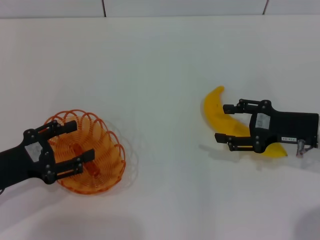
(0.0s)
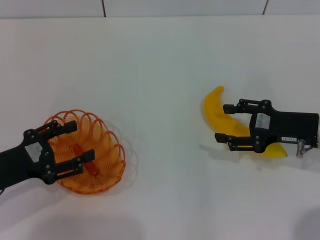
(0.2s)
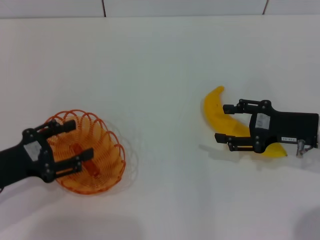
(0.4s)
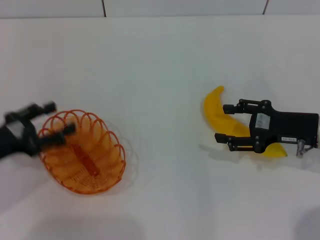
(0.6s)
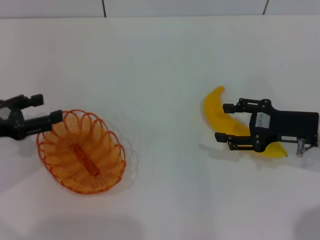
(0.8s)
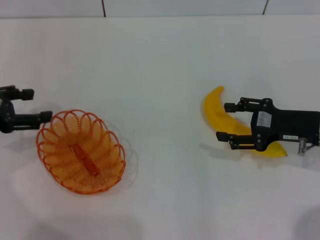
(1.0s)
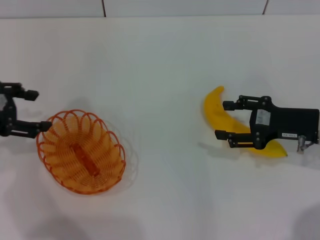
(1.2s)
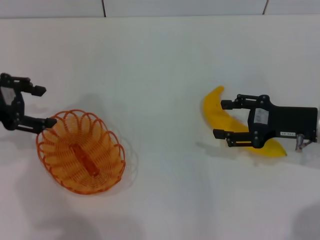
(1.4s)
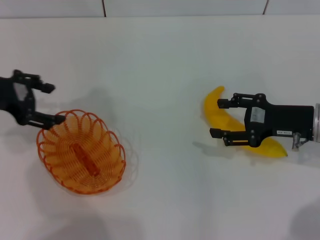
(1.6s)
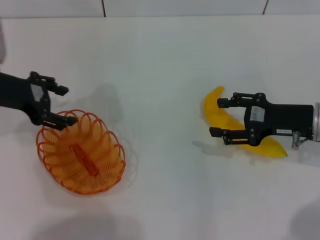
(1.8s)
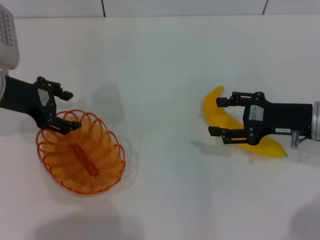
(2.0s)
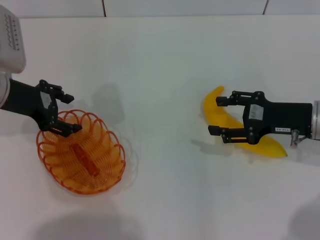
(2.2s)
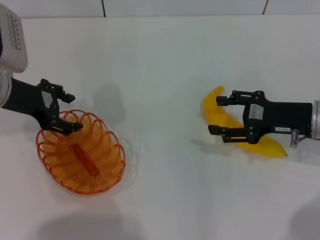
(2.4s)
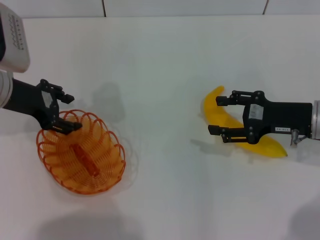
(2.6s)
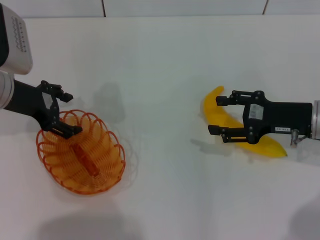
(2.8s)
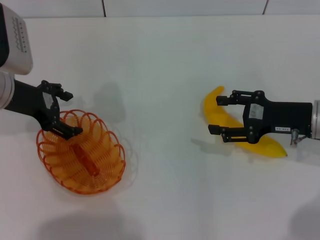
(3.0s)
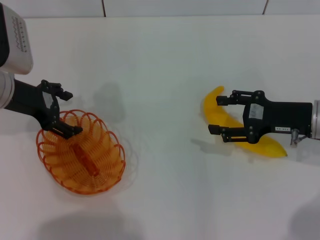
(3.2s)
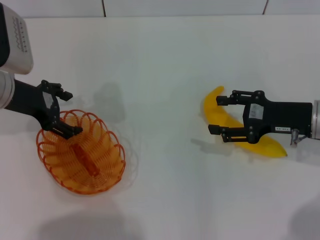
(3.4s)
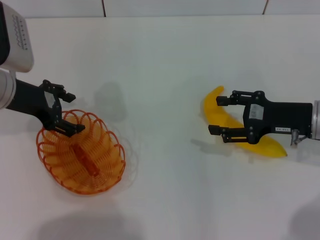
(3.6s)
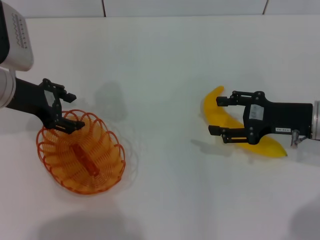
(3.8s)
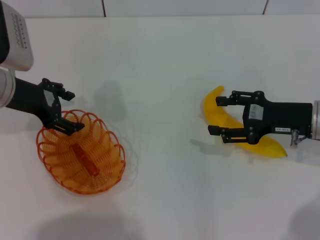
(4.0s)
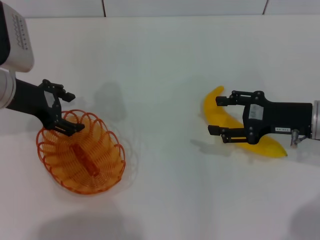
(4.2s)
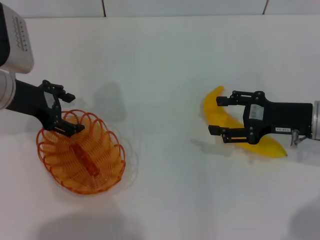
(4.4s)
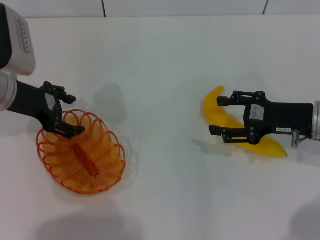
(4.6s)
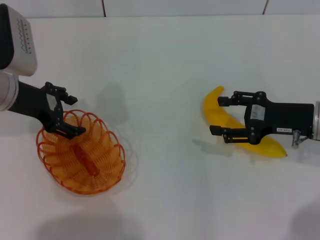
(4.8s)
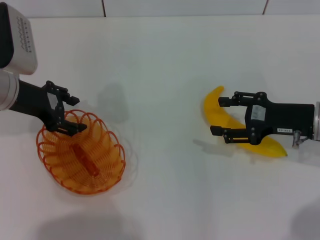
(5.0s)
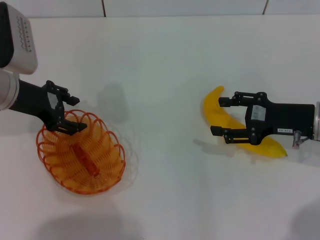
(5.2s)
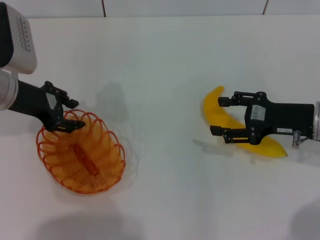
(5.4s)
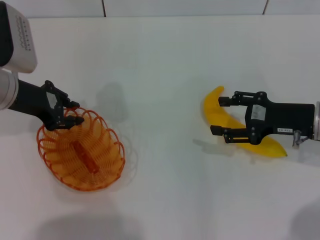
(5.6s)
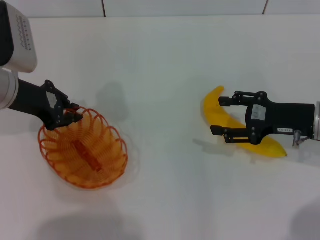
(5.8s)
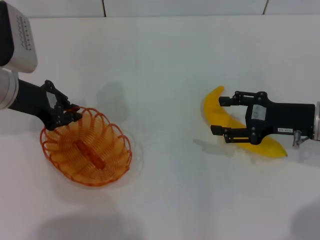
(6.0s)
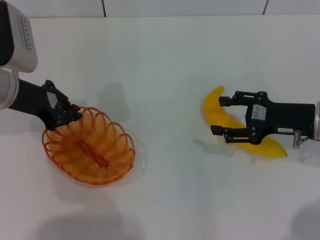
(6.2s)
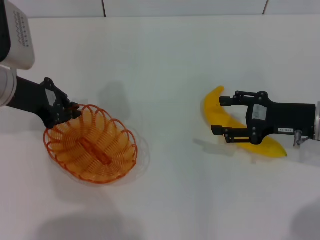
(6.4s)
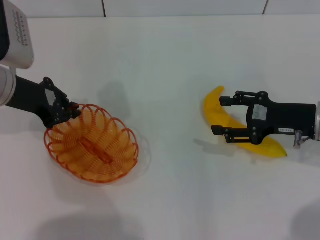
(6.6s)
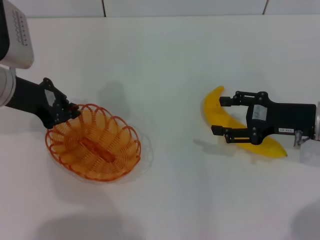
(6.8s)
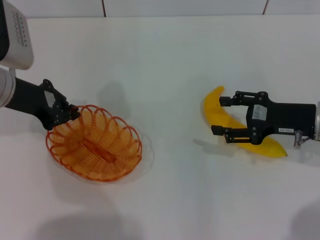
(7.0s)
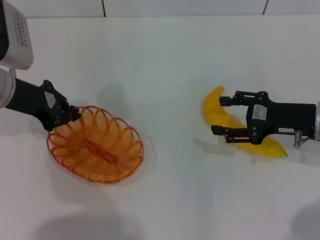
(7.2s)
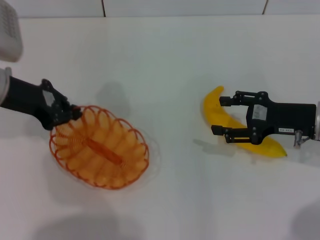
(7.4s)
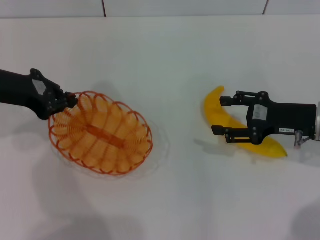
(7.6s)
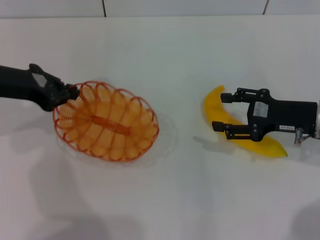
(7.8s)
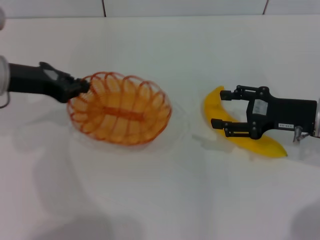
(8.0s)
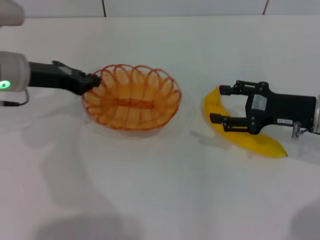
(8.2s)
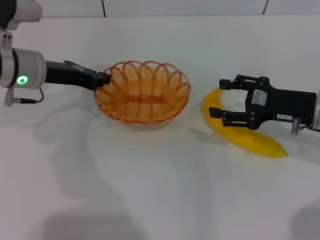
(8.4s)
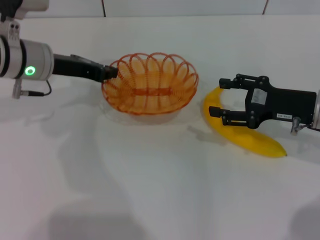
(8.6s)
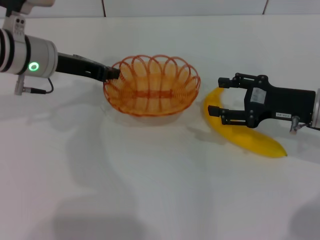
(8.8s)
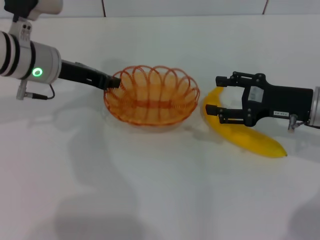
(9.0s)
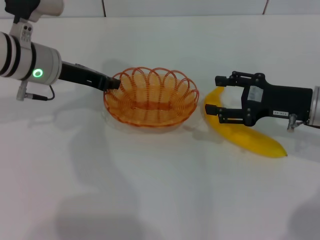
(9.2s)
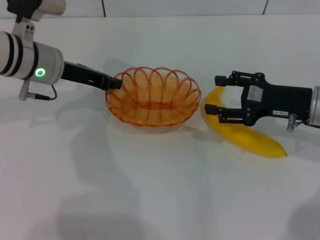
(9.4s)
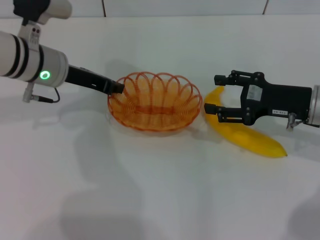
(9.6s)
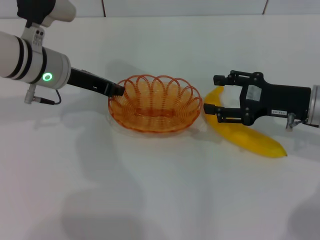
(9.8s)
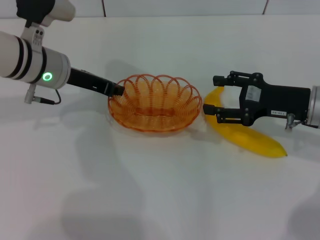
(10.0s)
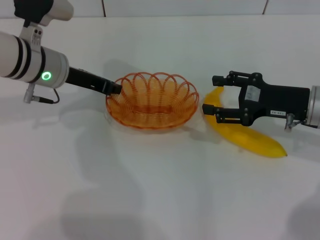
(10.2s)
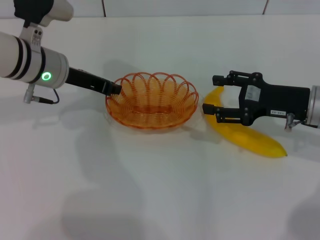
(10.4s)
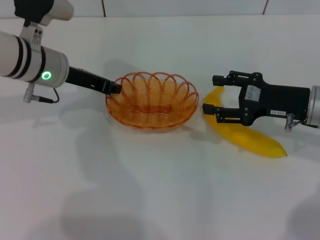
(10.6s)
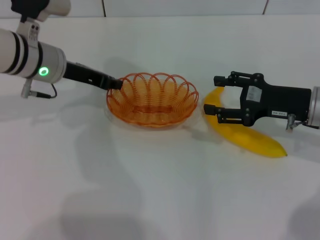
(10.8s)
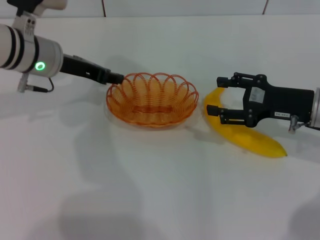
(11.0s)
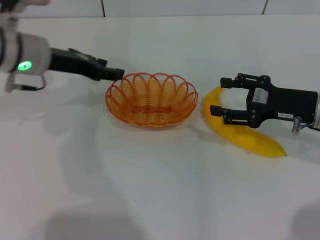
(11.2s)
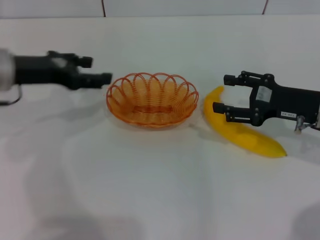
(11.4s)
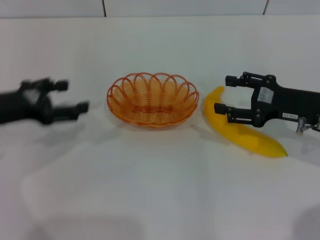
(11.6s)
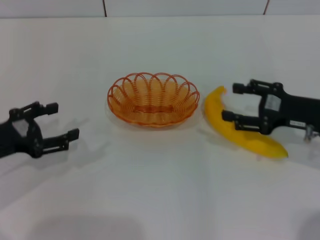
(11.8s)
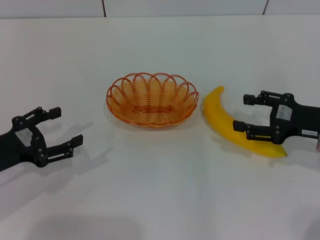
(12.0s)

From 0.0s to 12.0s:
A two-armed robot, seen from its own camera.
Step, from 0.0s to 7.2s: Pick up the basket with the left gripper.
Step, from 7.6s to 11.2s: Place the basket in the center of view with the left gripper.
From 0.0s to 1.6s: The left gripper moves forward and upward, about 15 cm.
From 1.6s to 3.0s: The left gripper moves roughly 5 cm.
From 3.0s to 4.4s: The two grippers keep their place.
From 4.4s to 6.0s: The left gripper closes.
From 6.0s to 7.6s: There are only small adjustments of the grippers.
From 7.6s to 9.0s: The left gripper shifts some 10 cm to the right and forward.
From 9.0s to 10.4s: Neither gripper changes place.
From 10.4s to 12.0s: The left gripper moves backward, to the left and downward, some 20 cm, and opens up, while the right gripper changes place by some 5 cm.

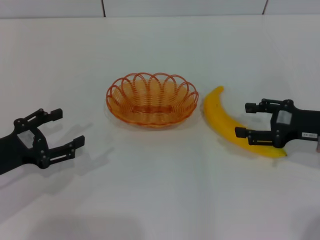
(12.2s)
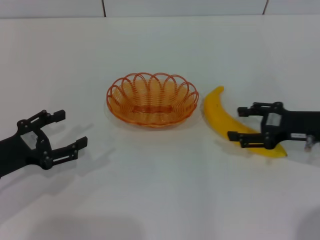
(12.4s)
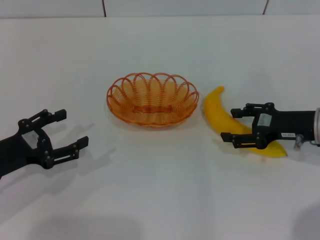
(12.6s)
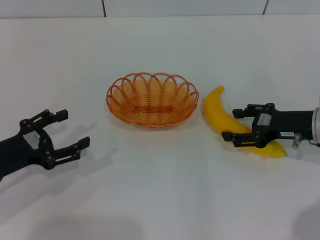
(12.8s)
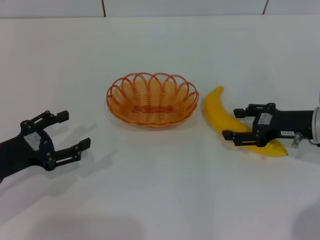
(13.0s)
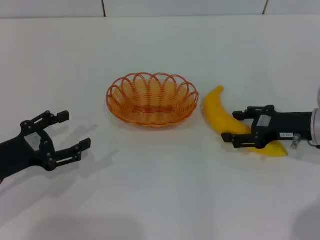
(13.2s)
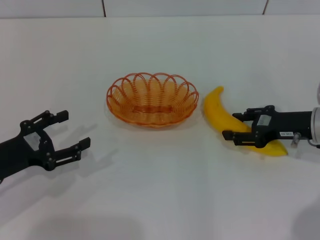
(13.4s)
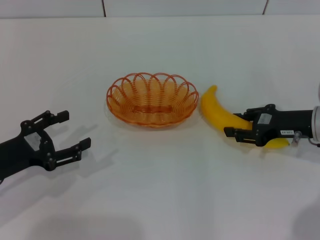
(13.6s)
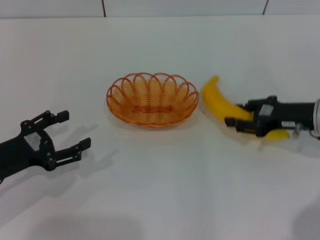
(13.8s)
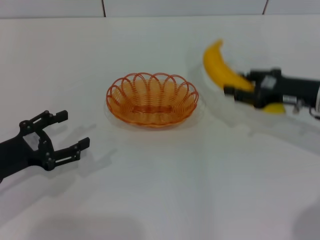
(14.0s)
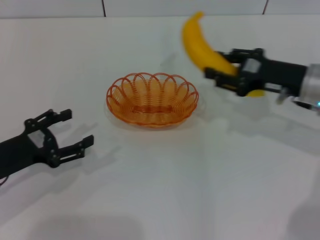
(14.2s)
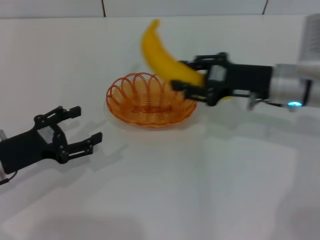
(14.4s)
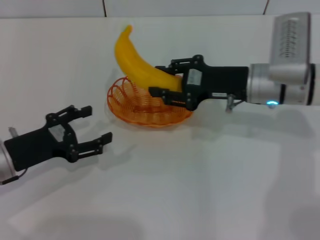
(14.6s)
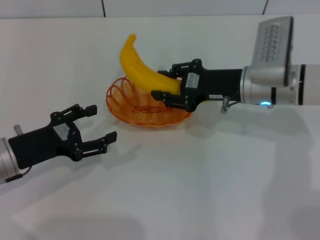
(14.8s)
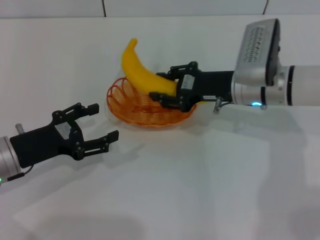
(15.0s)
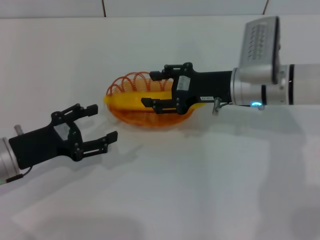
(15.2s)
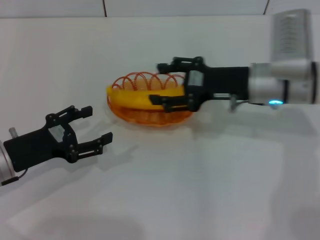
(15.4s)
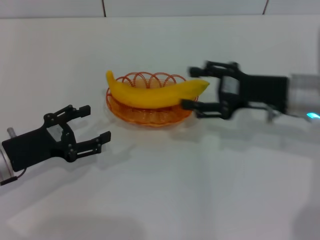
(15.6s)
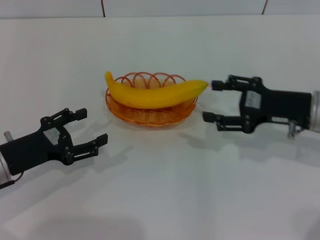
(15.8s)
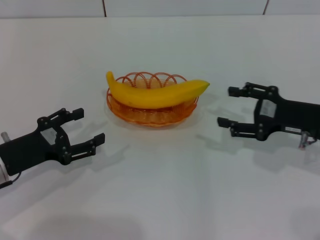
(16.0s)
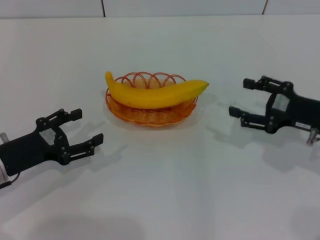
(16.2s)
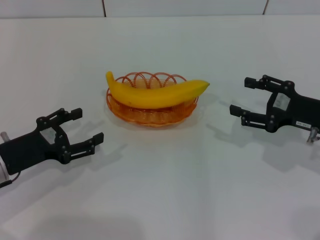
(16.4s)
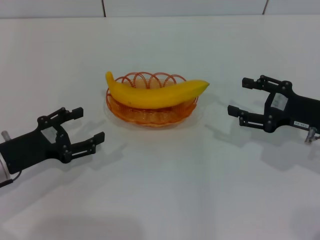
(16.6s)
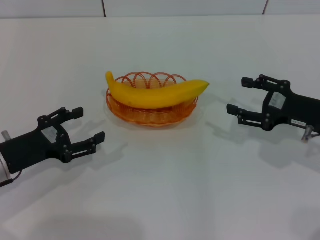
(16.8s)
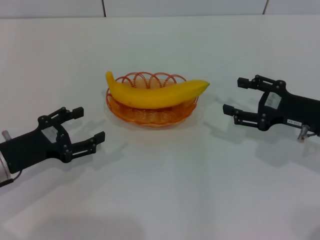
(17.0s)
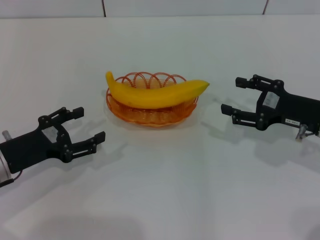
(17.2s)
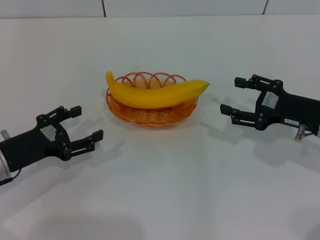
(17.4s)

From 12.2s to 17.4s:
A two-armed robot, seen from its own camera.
Step, from 12.2s to 13.6s: Pick up the banana with the right gripper.
Step, from 13.8s to 15.2s: Place the banana into the basket with the right gripper.
From 12.2s to 14.0s: The right gripper shifts by approximately 5 cm, and closes its fingers.
From 14.0s to 15.6s: The right gripper heads to the left, covering roughly 5 cm, and opens up.
From 15.6s to 17.4s: The right gripper heads to the right, covering approximately 5 cm.

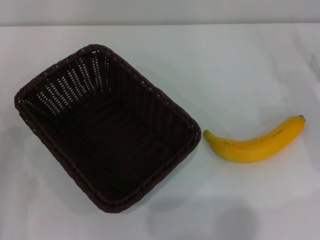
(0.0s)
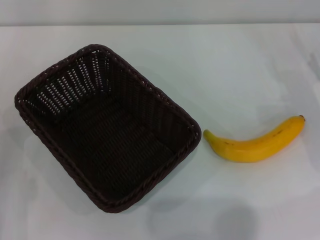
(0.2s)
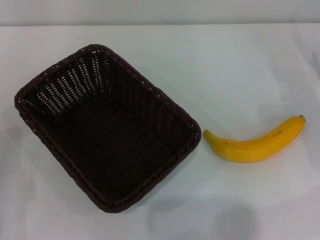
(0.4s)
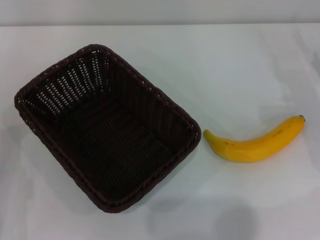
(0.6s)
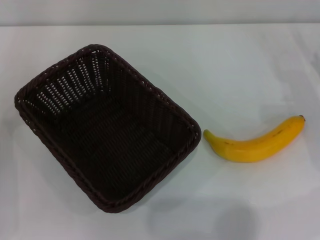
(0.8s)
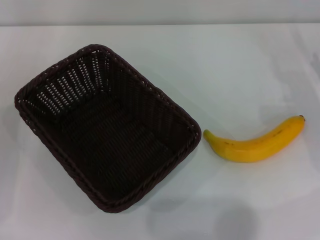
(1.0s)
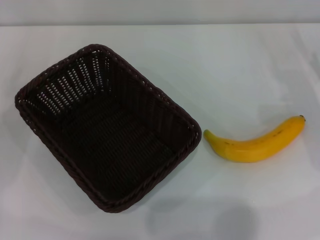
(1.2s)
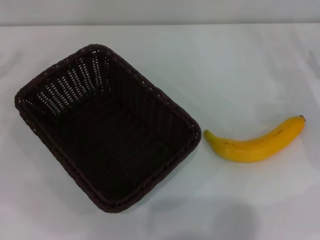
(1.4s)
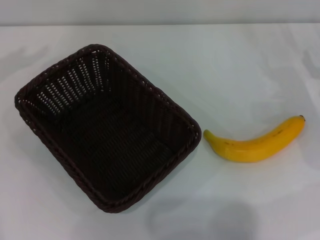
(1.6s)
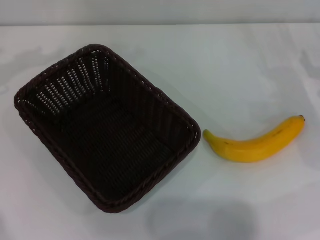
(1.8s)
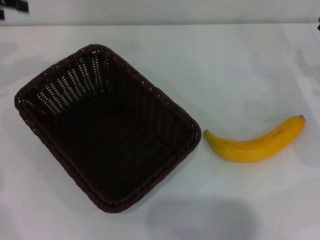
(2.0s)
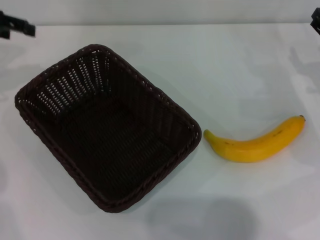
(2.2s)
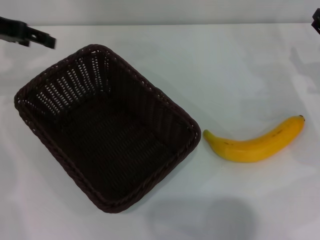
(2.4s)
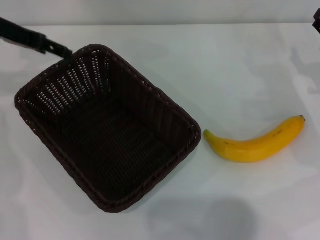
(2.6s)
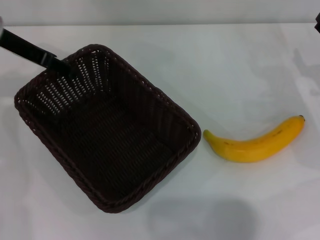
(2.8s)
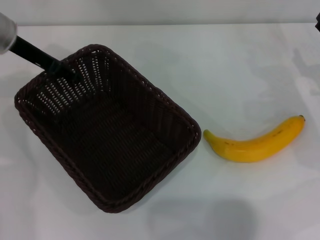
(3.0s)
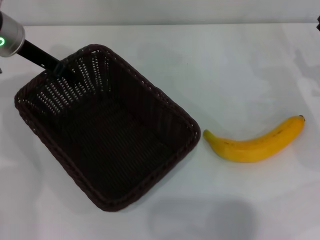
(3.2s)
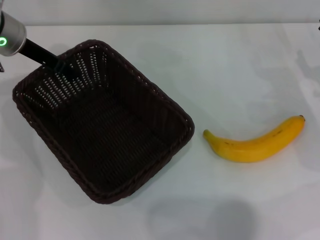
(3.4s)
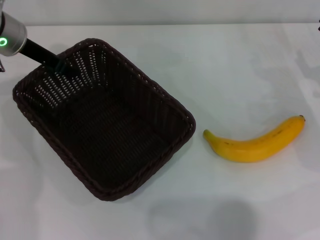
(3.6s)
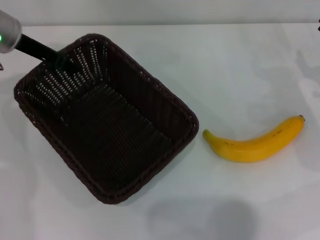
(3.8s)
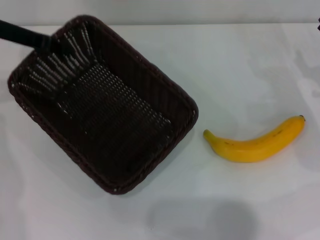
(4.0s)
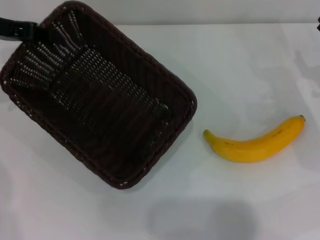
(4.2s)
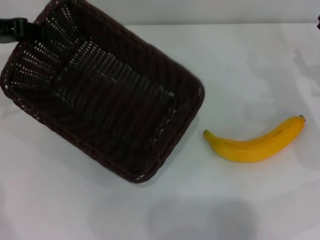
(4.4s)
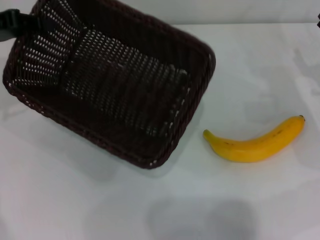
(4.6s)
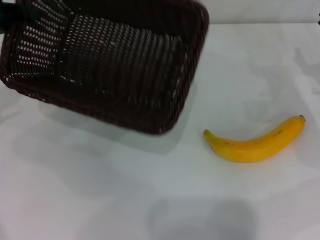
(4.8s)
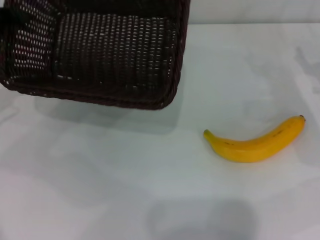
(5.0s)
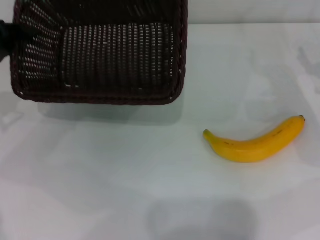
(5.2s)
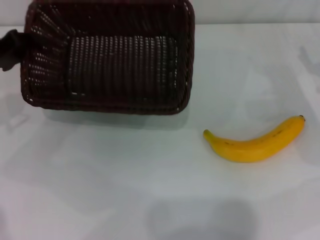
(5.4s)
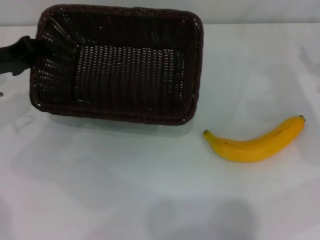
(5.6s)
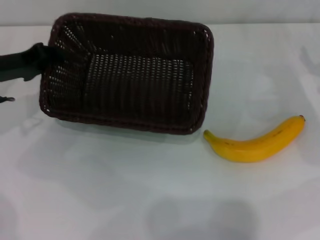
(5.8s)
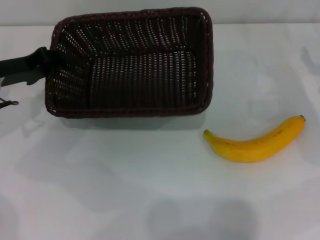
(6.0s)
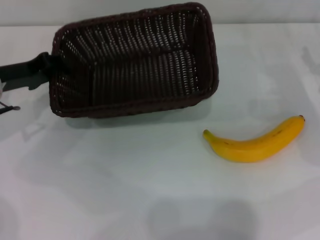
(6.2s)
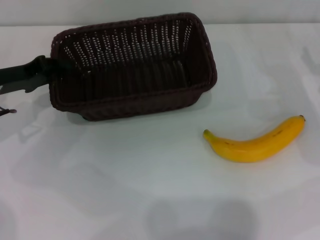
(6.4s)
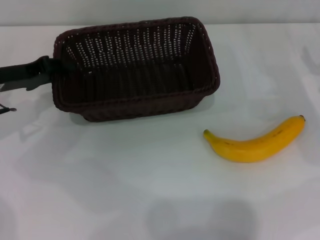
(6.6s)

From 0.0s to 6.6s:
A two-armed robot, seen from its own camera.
Step, from 0.0s to 4.4s: Pick up the dark basket with the left gripper.
From 0.0s to 1.6s: The left gripper travels upward and forward by about 25 cm.
From 1.6s to 3.2s: The left gripper moves to the right, about 15 cm.
From 3.2s to 5.0s: The left gripper goes about 15 cm to the left and backward, and closes.
From 5.0s to 6.6s: The left gripper heads downward and to the right, covering about 10 cm.
